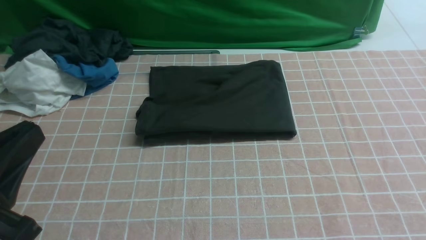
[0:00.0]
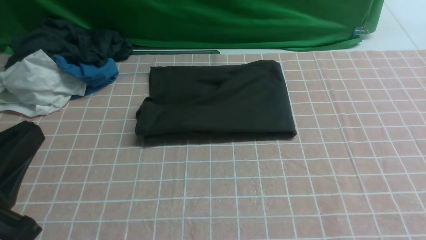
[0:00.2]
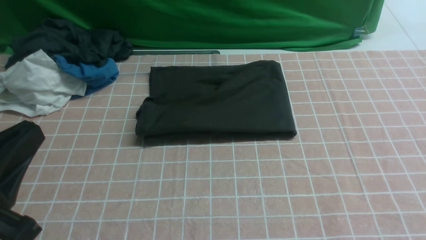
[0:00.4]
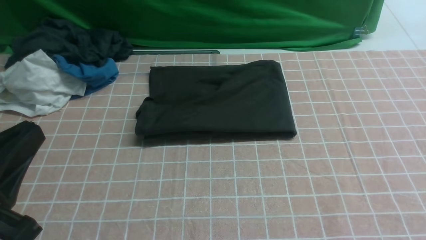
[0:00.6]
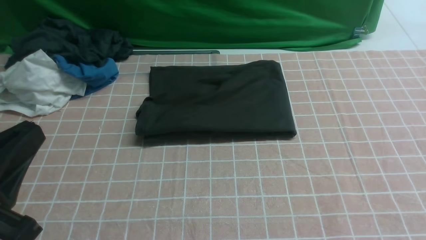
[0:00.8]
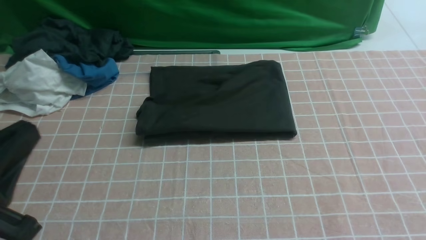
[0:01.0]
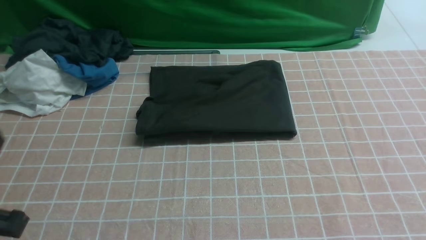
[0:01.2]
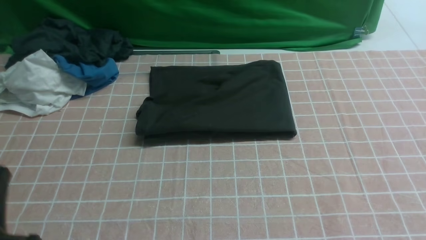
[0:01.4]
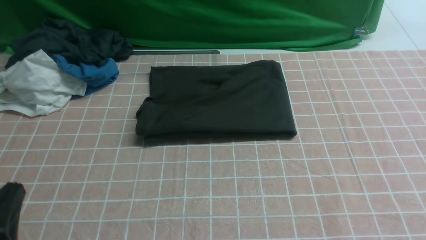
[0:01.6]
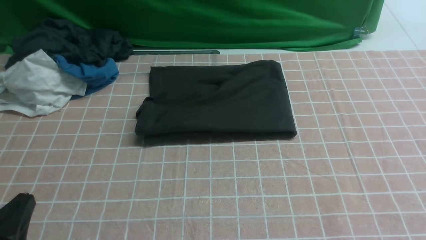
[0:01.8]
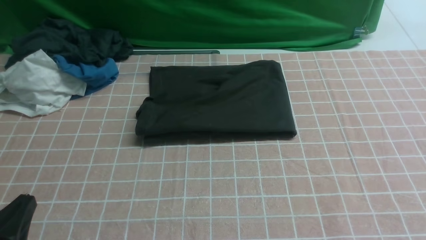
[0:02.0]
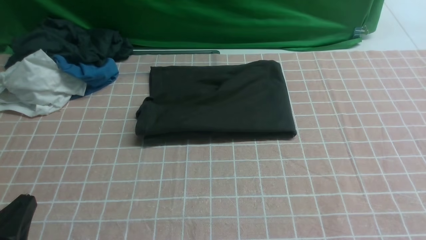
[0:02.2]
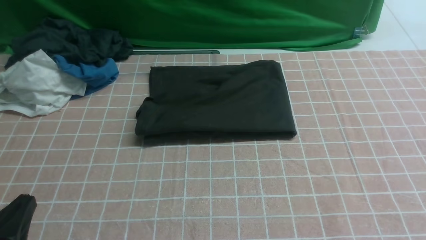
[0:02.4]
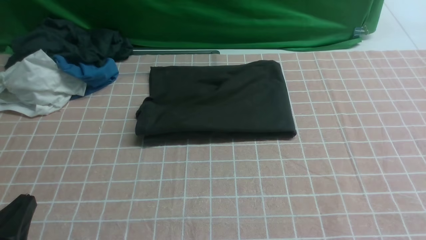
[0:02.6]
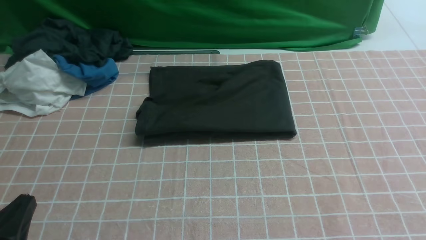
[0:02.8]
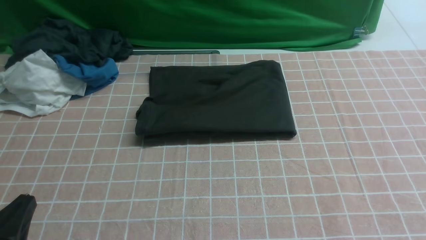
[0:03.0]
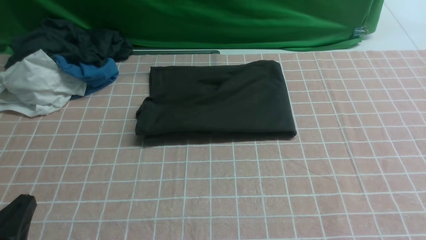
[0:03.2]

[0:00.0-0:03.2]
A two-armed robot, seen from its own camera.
0:00.0 to 0:01.6: The left gripper goes some 10 cm downward.
0:01.6 to 0:03.2: There are only small adjustments of the grippers.
